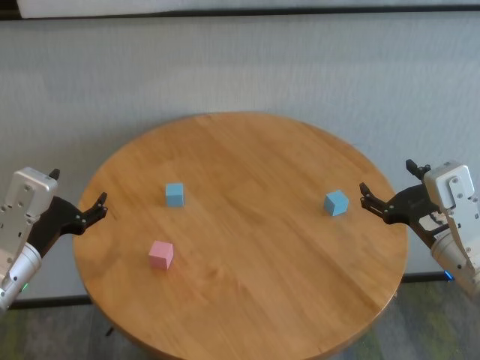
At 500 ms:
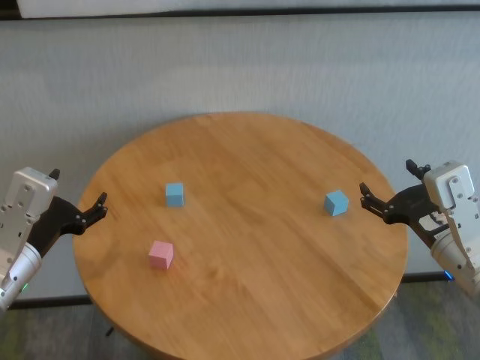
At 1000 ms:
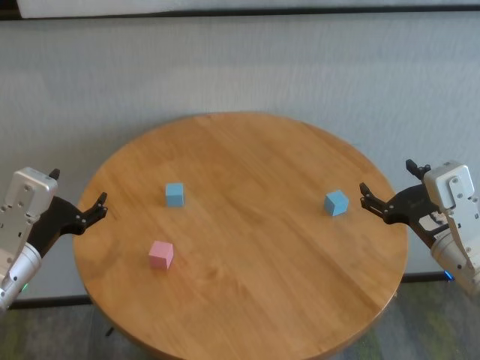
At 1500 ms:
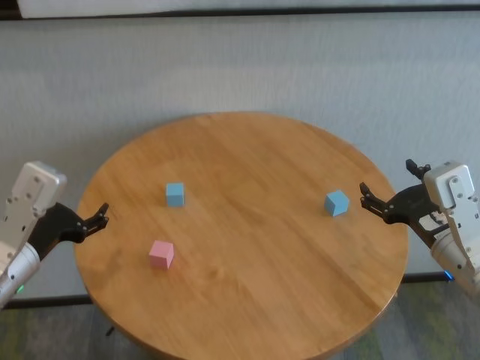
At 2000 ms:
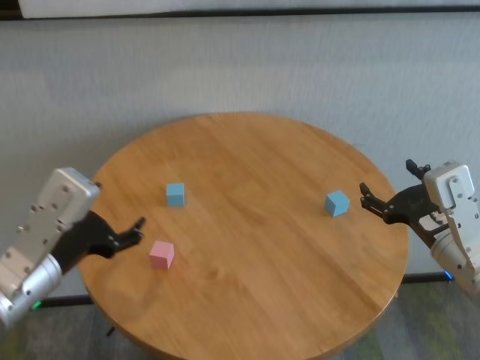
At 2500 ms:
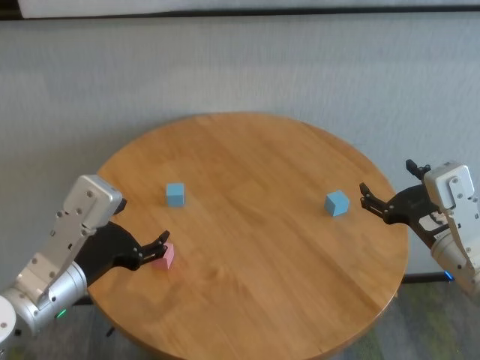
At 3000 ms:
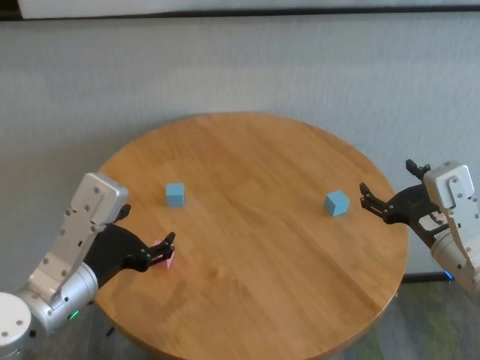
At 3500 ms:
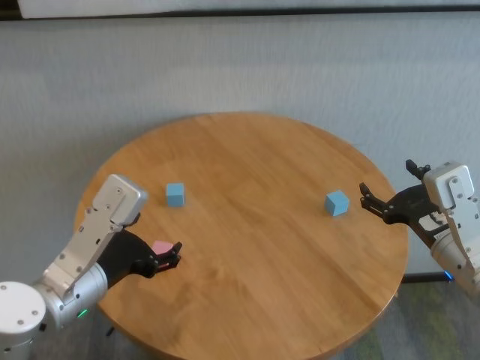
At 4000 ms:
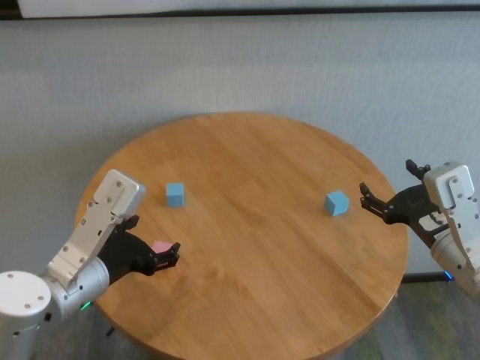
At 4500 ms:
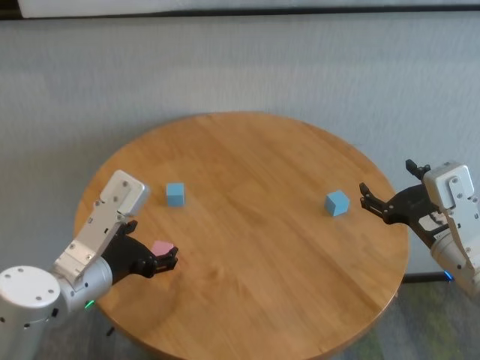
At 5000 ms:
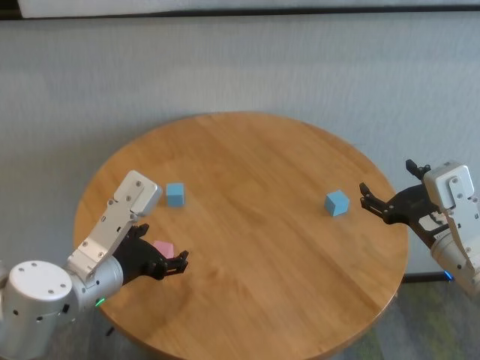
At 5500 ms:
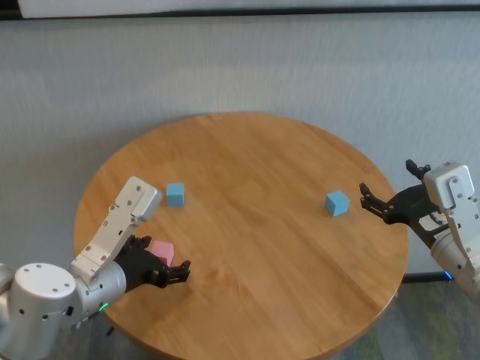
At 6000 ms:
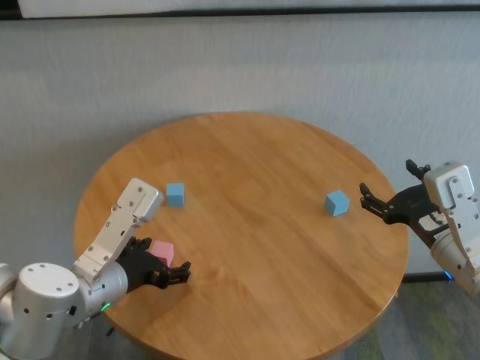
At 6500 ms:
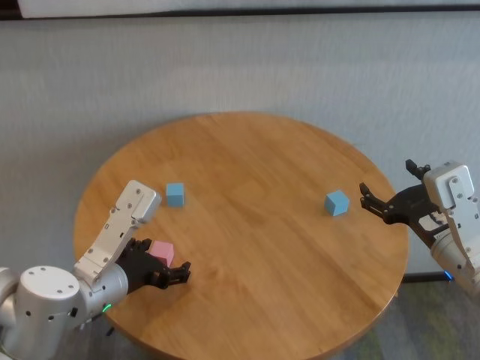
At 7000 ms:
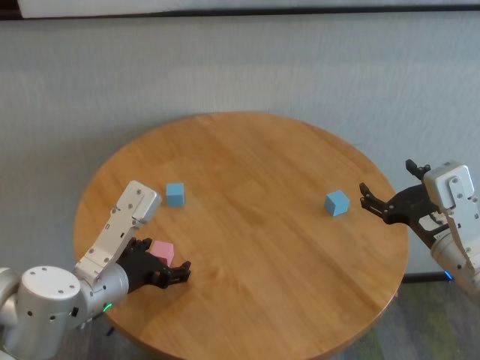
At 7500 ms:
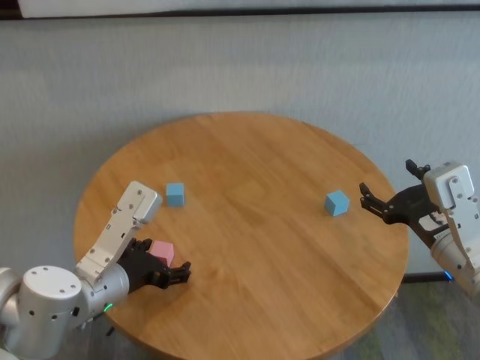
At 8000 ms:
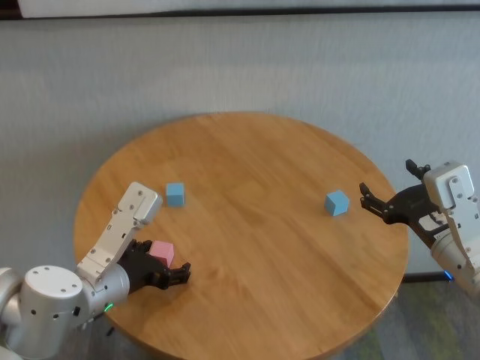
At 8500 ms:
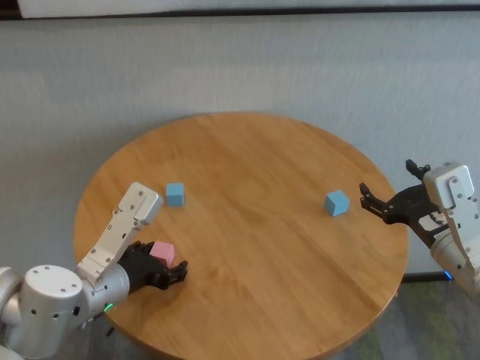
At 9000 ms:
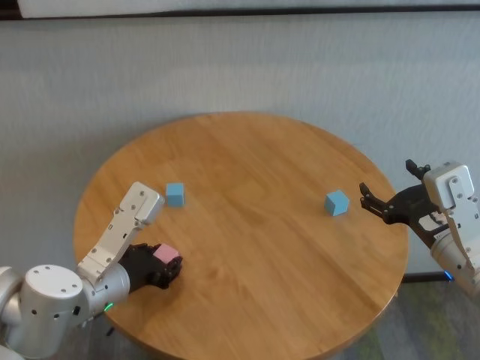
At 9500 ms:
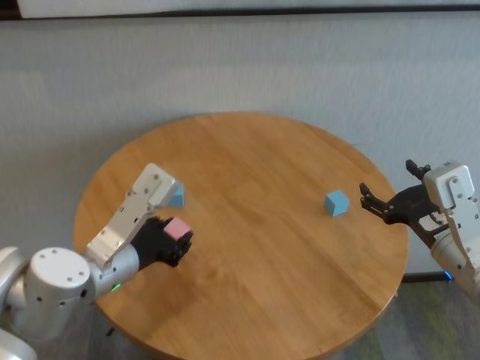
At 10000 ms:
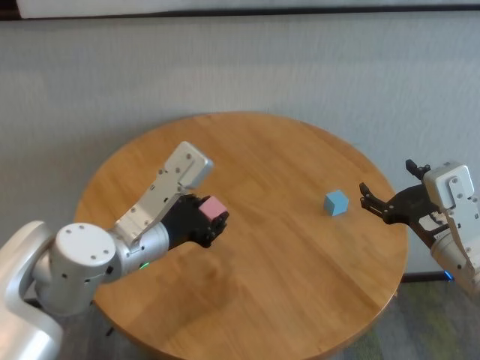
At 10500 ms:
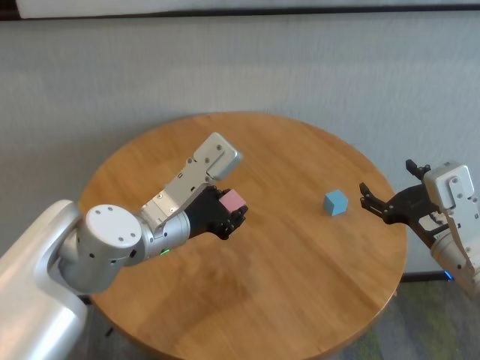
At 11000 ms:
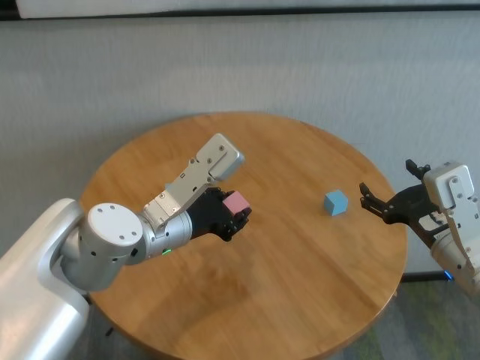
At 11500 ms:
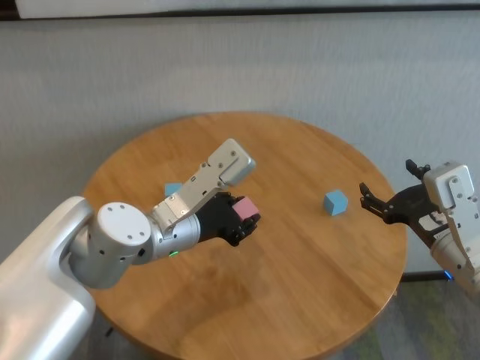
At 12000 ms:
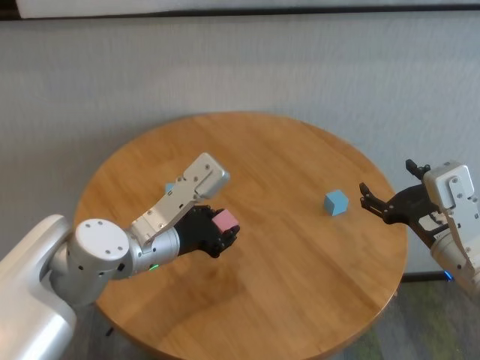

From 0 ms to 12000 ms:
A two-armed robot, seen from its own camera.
Task of the whole recording: stack building blocks on the table.
Step, from 0 ms to 9000 ms: Grasp the pink building block with left gripper.

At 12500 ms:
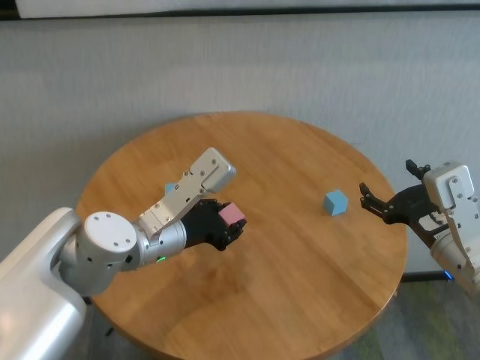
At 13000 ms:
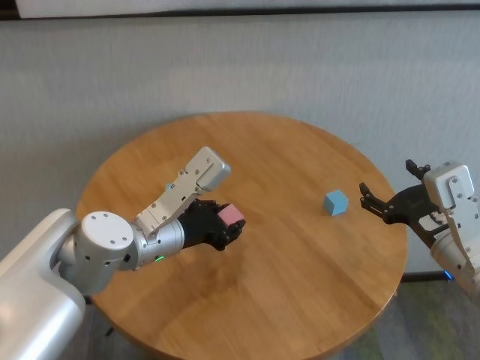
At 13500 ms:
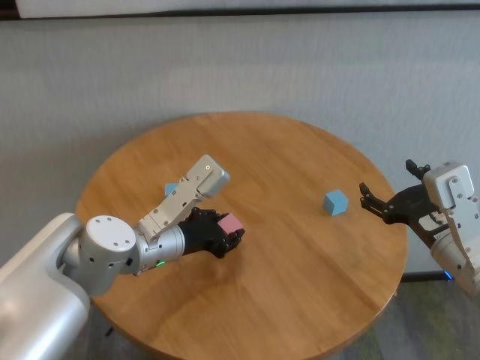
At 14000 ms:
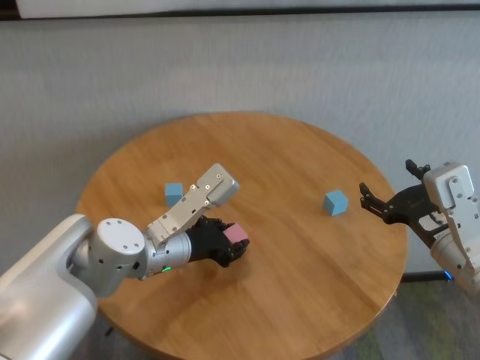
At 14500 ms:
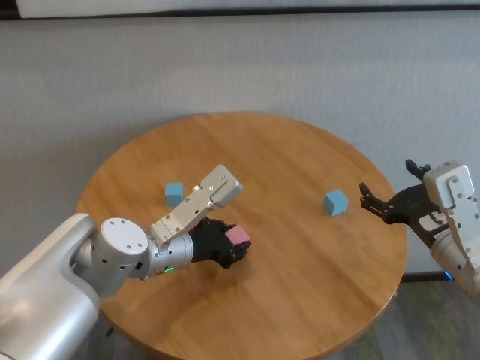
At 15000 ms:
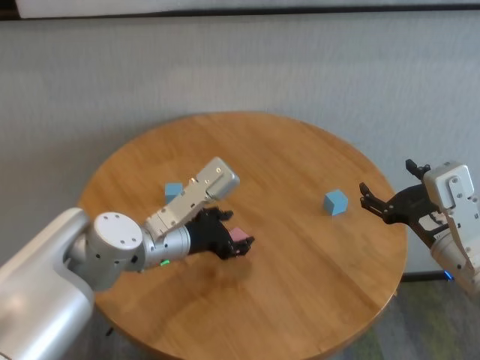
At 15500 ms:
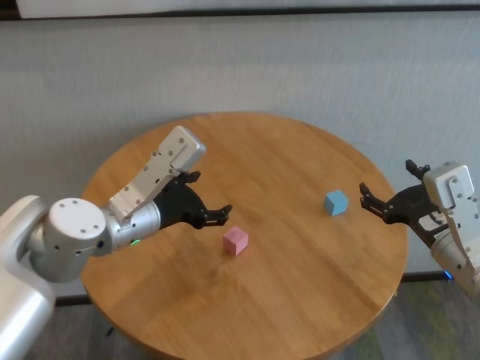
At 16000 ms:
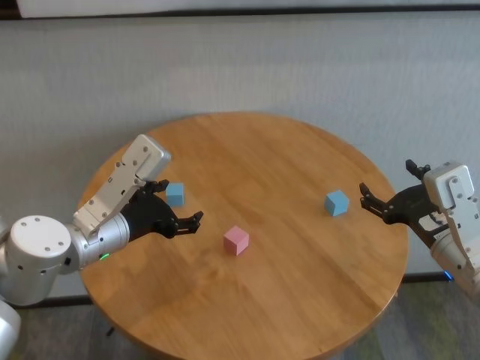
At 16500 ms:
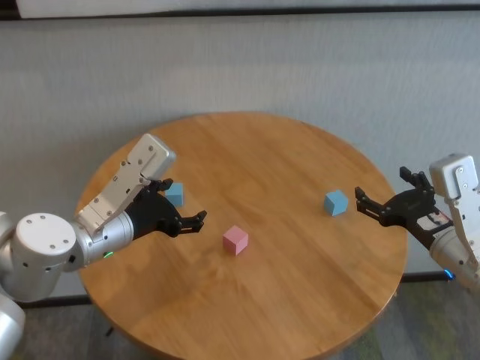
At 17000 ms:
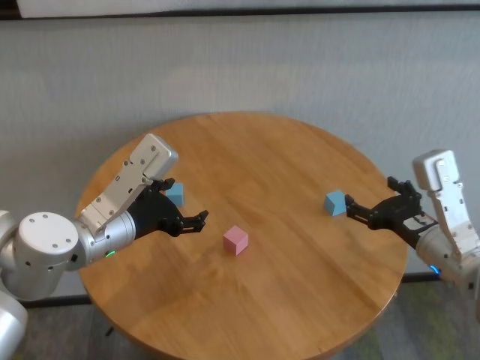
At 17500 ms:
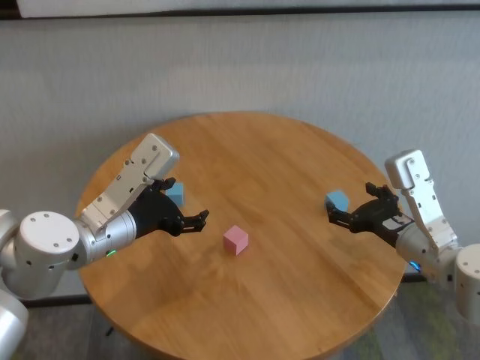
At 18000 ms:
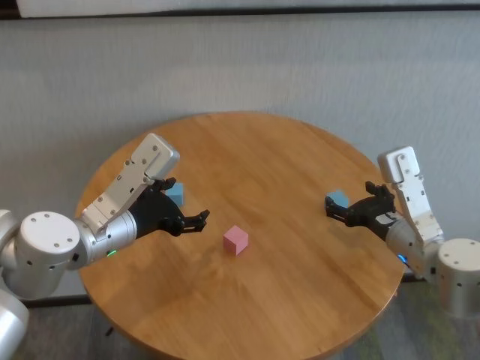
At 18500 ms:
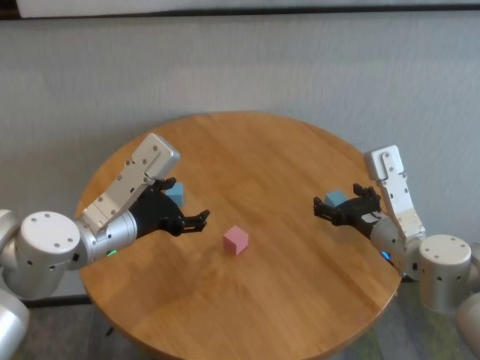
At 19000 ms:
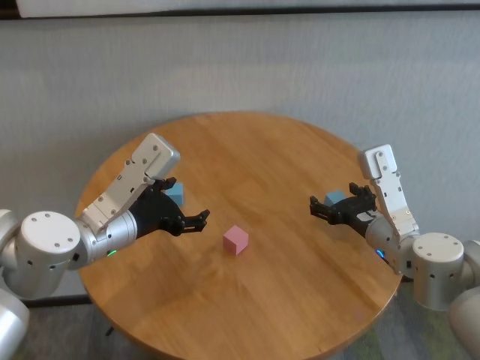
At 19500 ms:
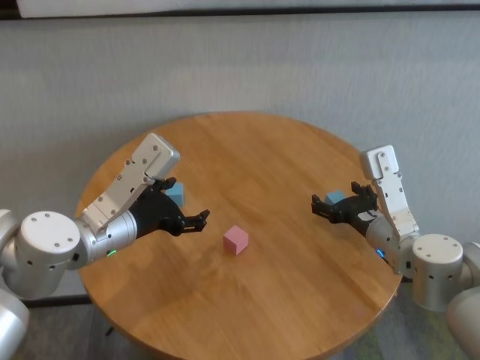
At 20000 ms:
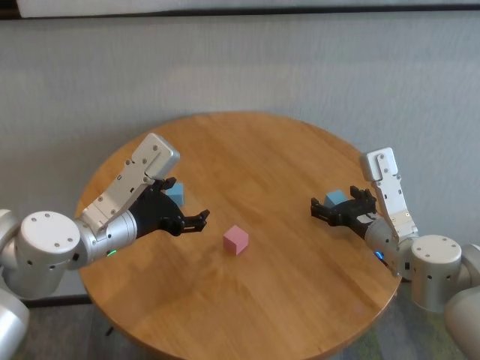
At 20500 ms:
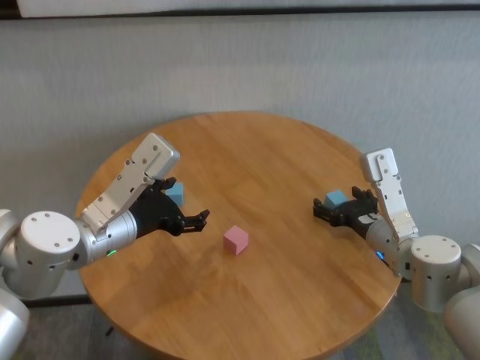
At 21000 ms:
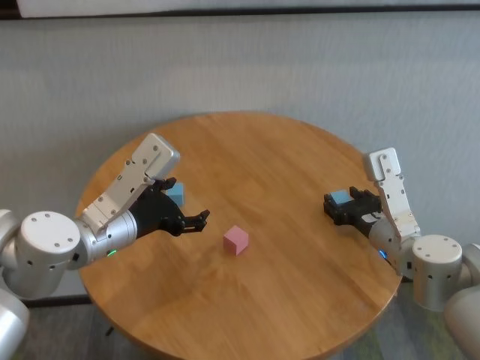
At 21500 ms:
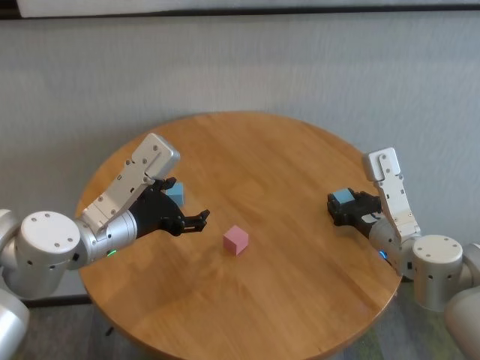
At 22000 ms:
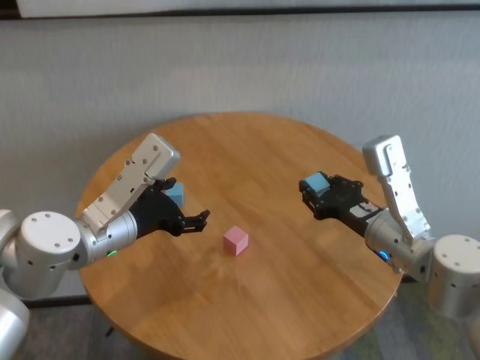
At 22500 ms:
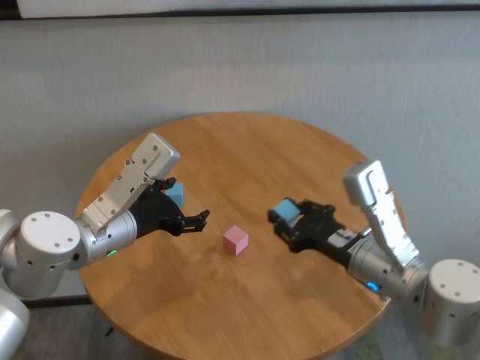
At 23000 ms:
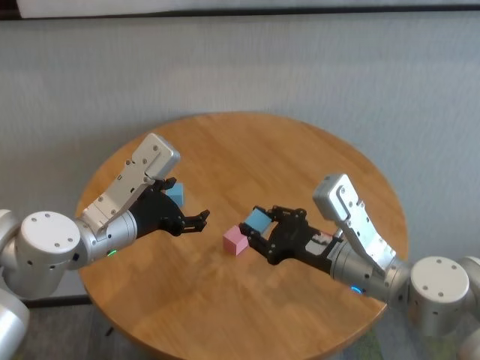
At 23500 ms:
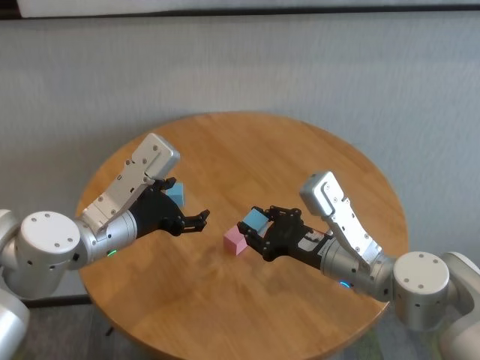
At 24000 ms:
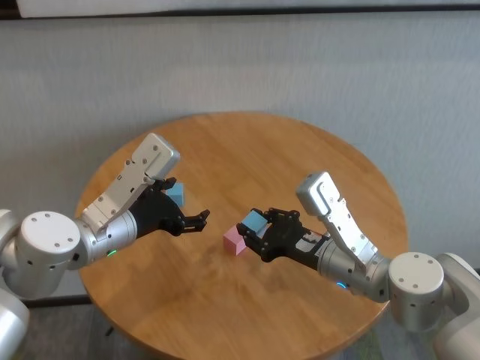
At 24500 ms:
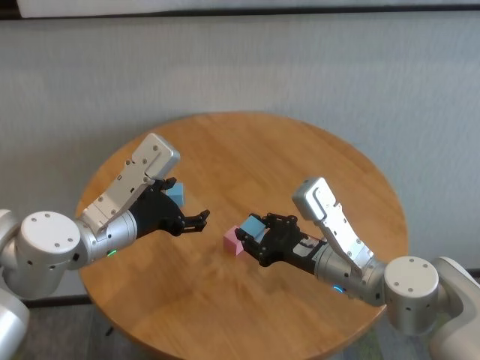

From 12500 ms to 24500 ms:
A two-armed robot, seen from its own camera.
Task of the whole recording: stack building blocks on the table.
Step, from 12500 ms to 14500 ms: Place the pink building block in the center of table with left gripper.
Step, from 15000 ms to 21000 ms: Grasp the blue building block with right gripper.

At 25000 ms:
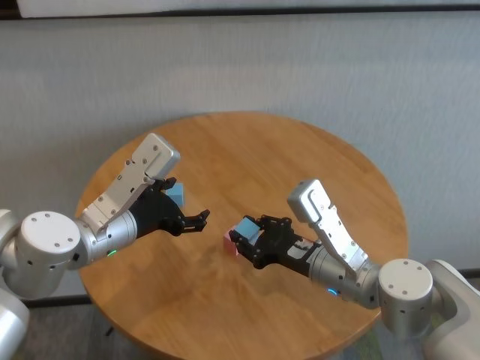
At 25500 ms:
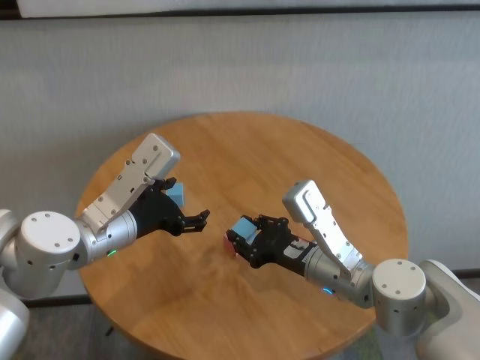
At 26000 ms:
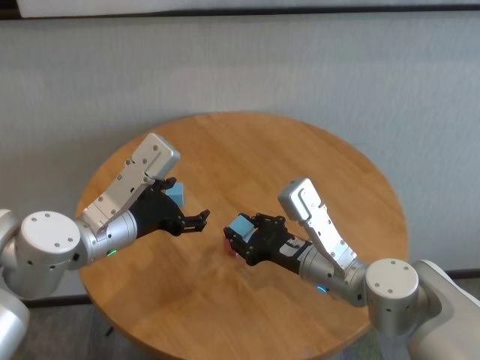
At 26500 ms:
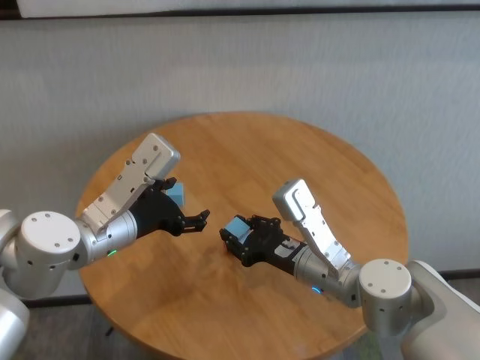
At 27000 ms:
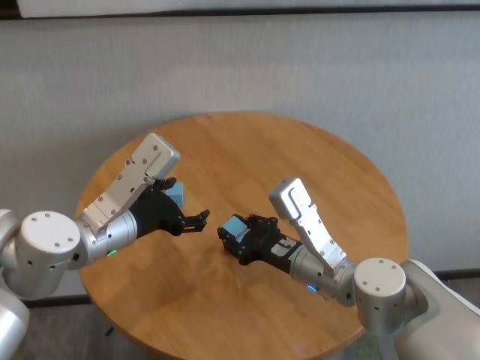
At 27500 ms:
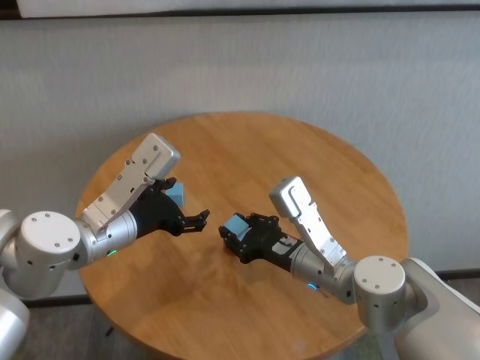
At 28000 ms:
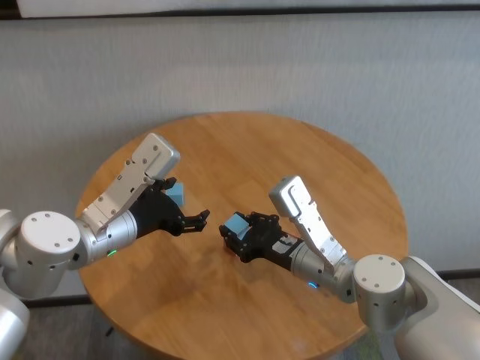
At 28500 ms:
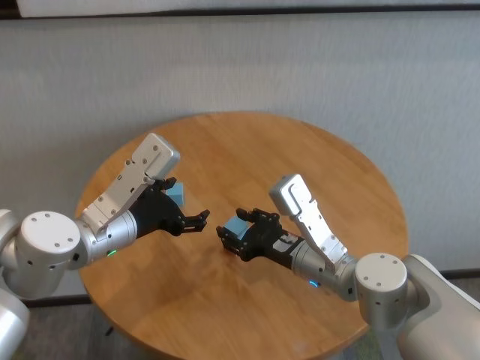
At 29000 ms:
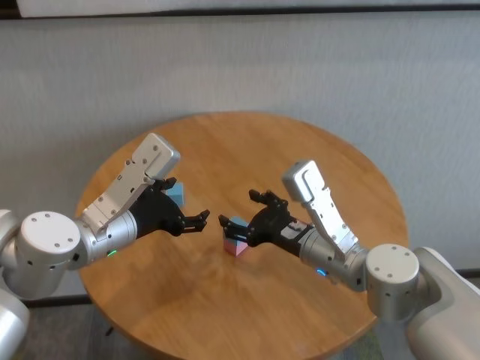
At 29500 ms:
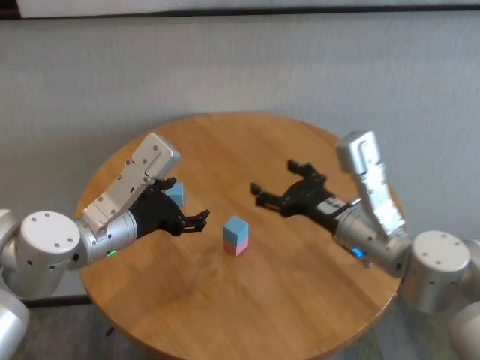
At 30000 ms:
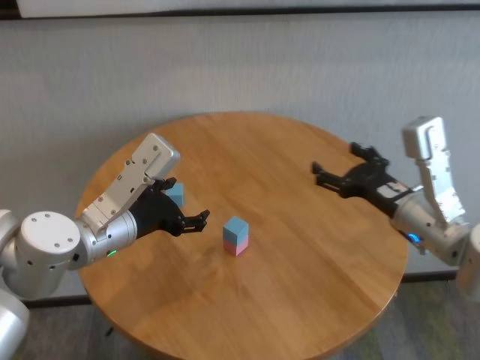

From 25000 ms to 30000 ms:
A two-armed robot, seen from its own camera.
Task of the whole recording: stack building blocks on the table.
Step, from 25000 ms to 28500 ms: Place the blue building block on the pink building blocks with right gripper.
